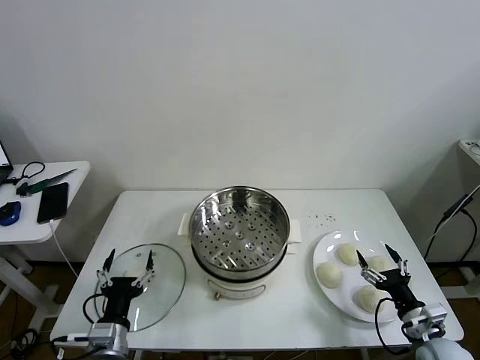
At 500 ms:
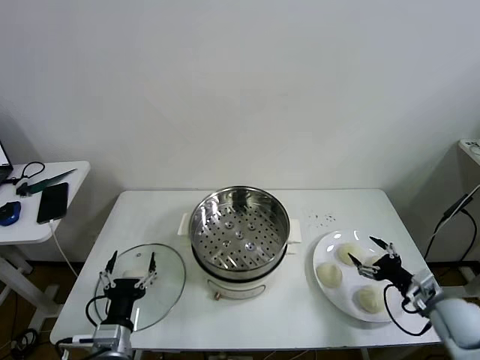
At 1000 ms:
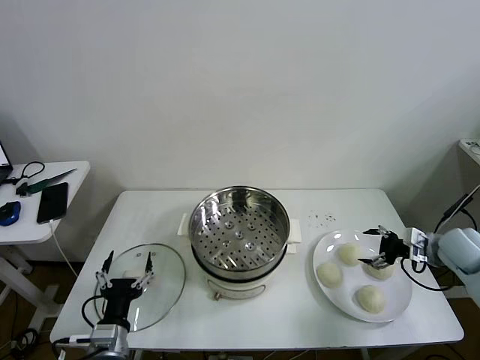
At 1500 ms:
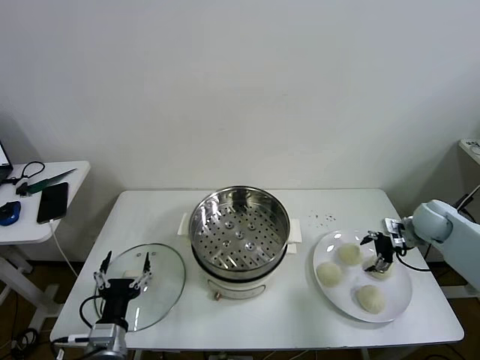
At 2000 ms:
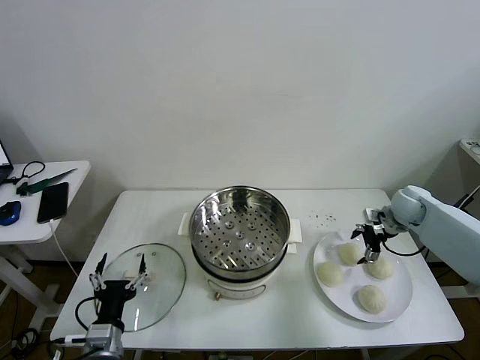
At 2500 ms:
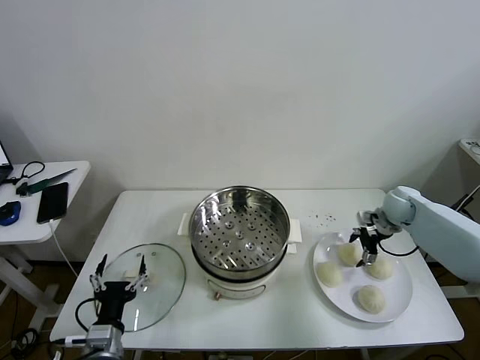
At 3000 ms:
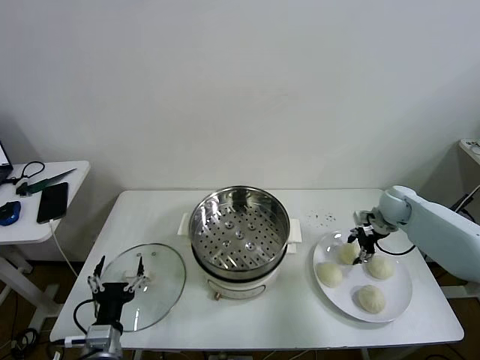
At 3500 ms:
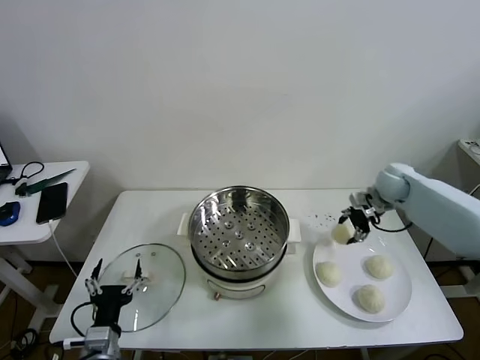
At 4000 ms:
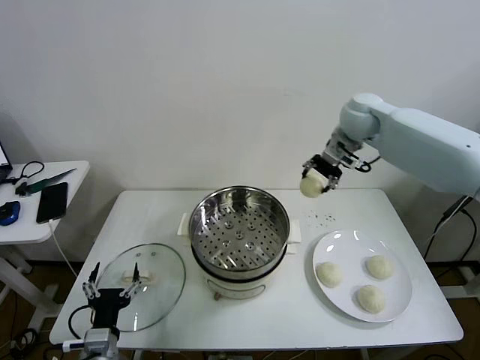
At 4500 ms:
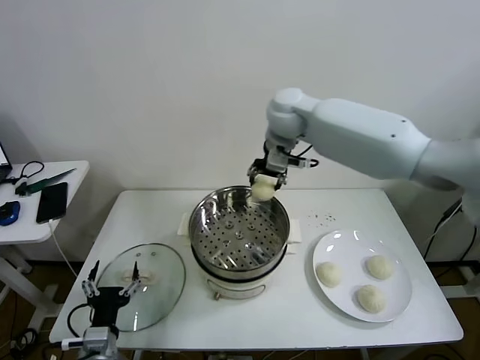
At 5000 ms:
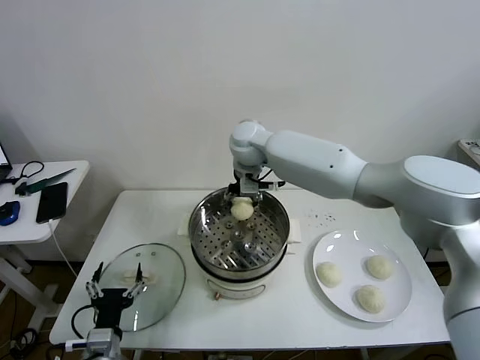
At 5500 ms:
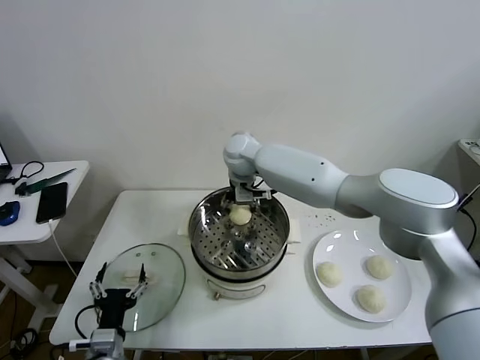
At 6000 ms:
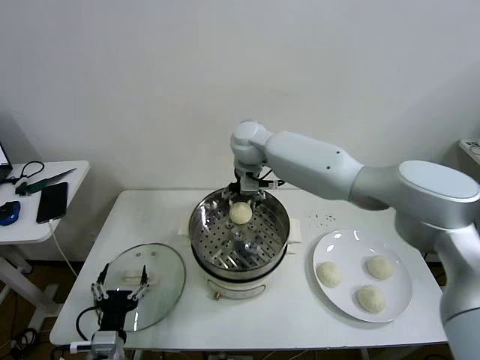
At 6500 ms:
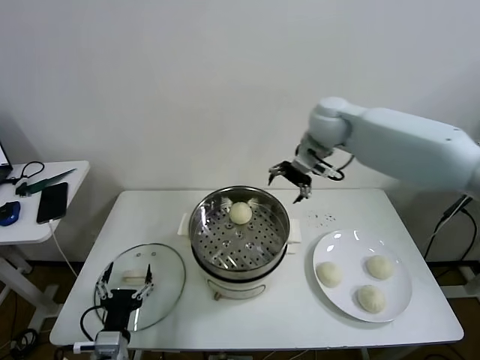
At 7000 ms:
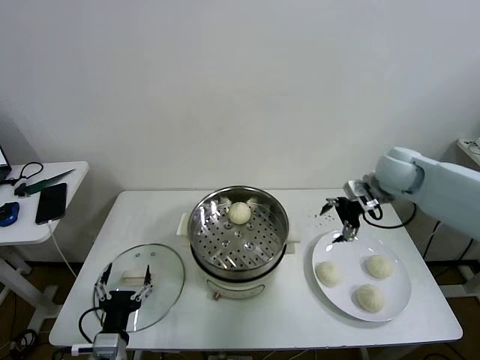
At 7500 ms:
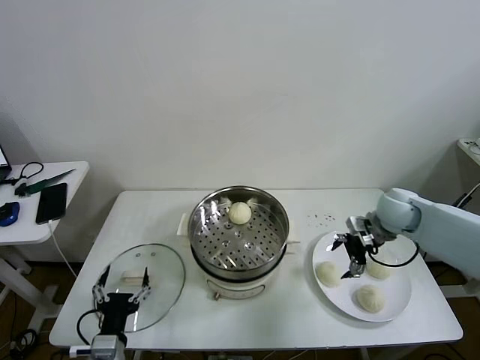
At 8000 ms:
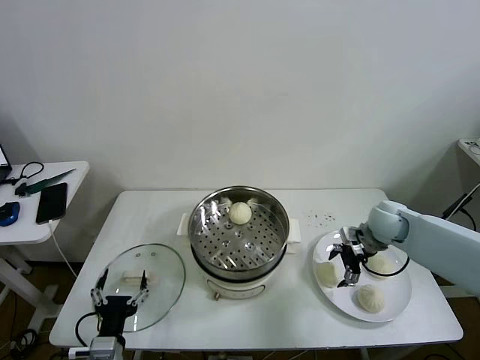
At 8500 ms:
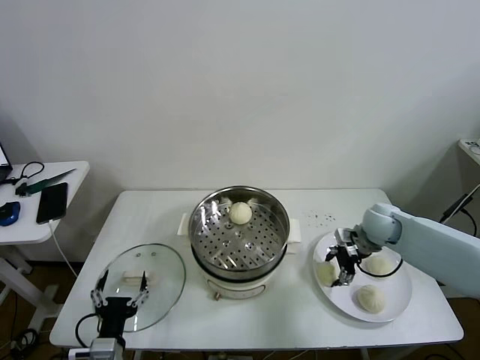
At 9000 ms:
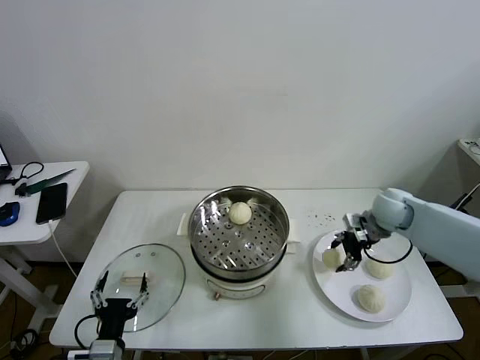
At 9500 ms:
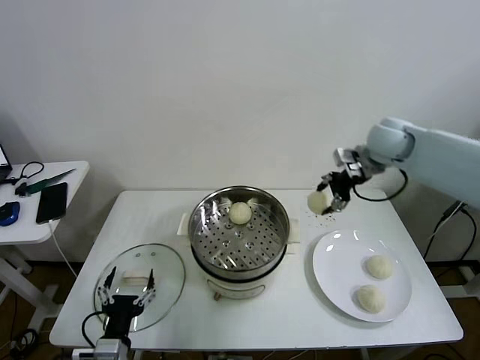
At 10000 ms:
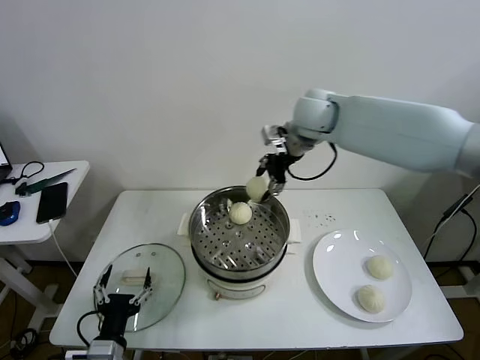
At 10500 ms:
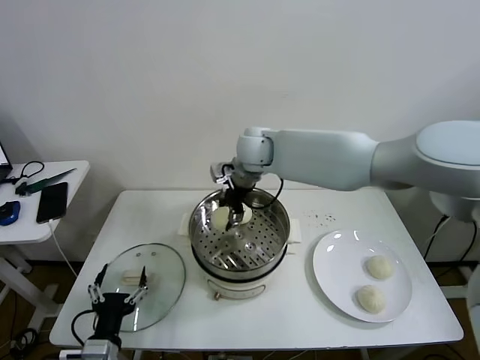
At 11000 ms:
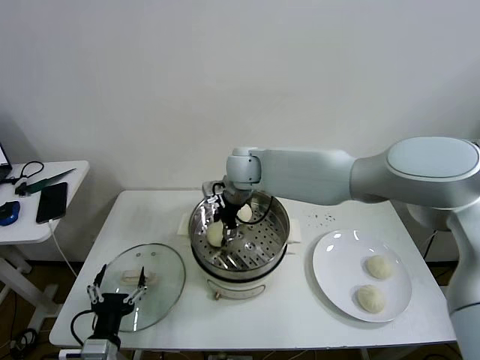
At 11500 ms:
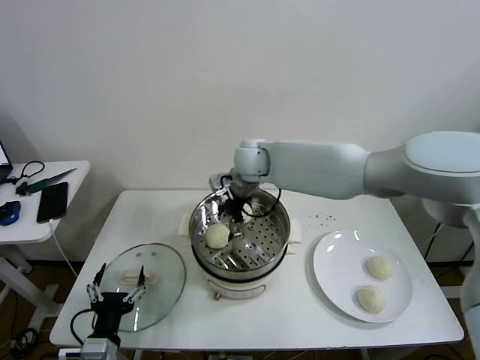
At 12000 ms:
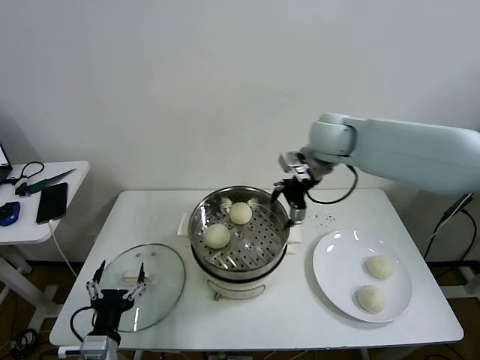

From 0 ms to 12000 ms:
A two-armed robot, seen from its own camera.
Task of the whole recording: take steamed baozi put them in steamer then cover it.
Step, from 0 ms to 2500 ms: Grasp the baozi in the plate with right gripper.
Step, from 3500 ms to 5500 ms: Place the baozi on the steamer with right gripper.
Step, from 6000 ms to 8000 ms: Grasp the baozi in the plate with right gripper.
Step, from 8500 ms to 11000 ms: Place the baozi on the steamer with right gripper.
From 2000 ms to 4000 ms: The right gripper moves upward and to the left, about 30 cm, and closes up.
From 4000 ms to 6000 ms: The right gripper is displaced to the left by about 20 cm, and opens up.
From 6000 ms to 8000 ms: The right gripper heads to the right and downward, covering some 35 cm.
From 8000 ms to 10000 ms: The right gripper moves upward and to the left, approximately 35 cm, and closes its fingers.
From 10000 ms to 12000 ms: The right gripper is displaced to the right by roughly 10 cm, and opens its fingers.

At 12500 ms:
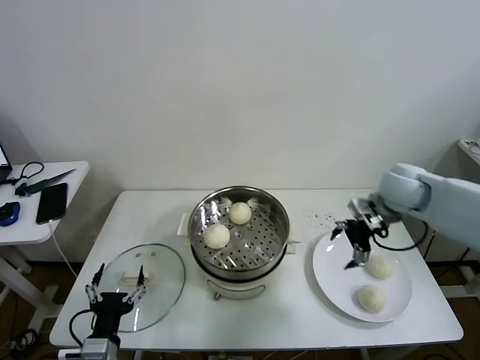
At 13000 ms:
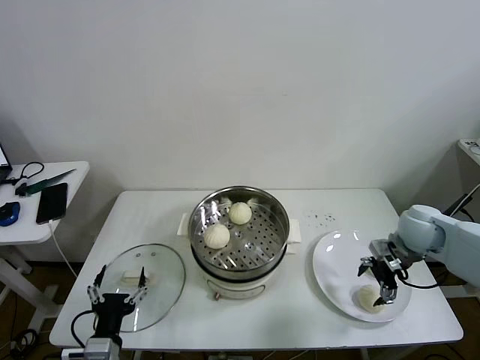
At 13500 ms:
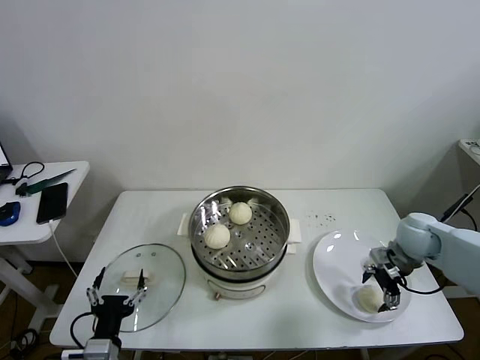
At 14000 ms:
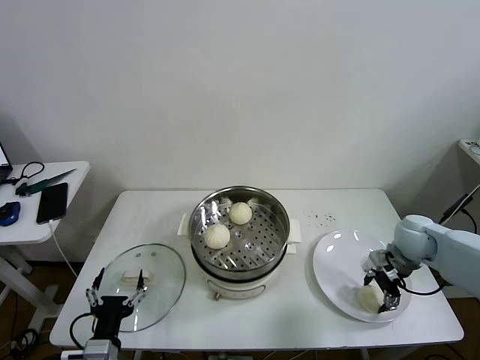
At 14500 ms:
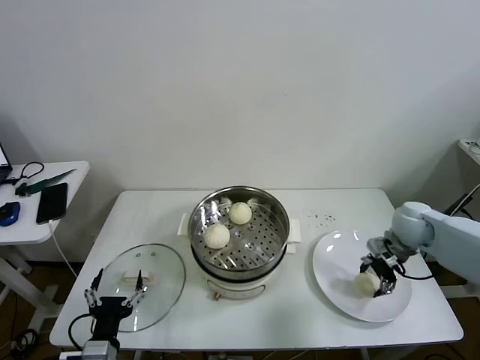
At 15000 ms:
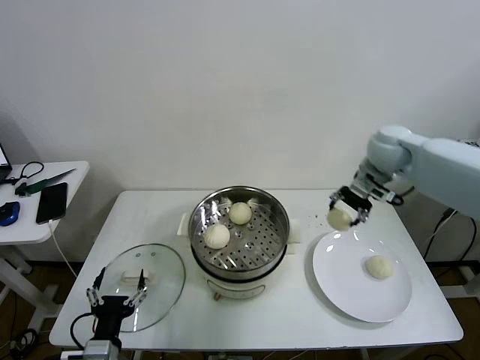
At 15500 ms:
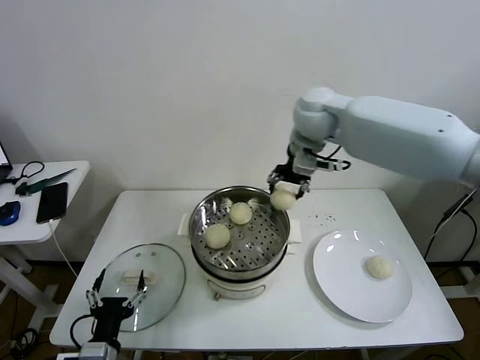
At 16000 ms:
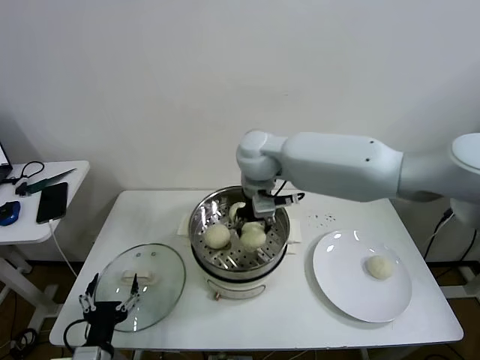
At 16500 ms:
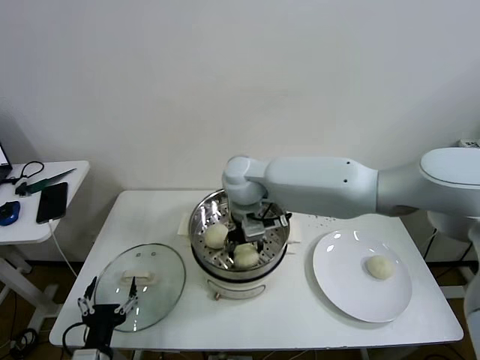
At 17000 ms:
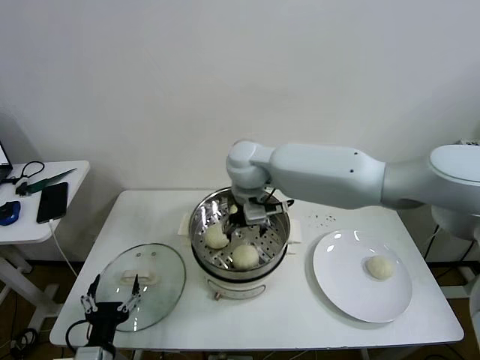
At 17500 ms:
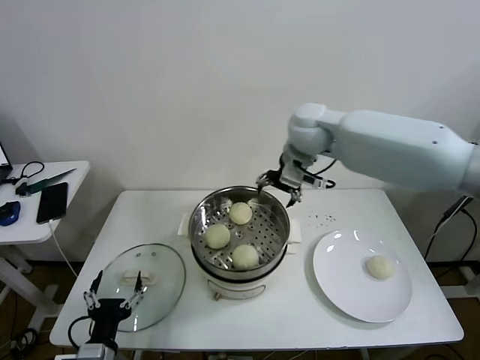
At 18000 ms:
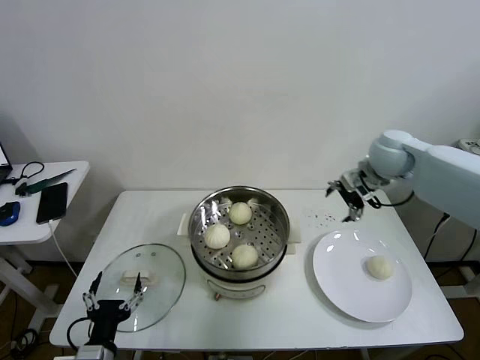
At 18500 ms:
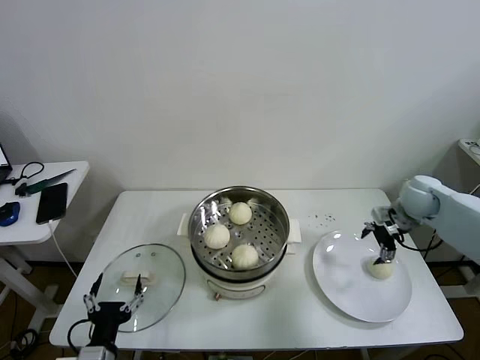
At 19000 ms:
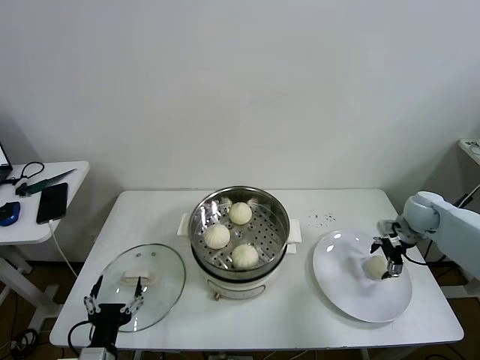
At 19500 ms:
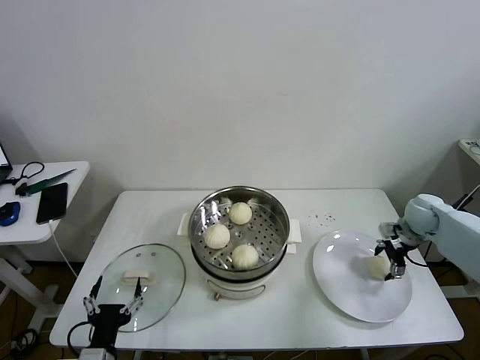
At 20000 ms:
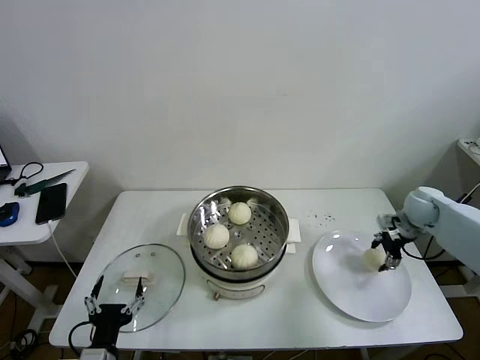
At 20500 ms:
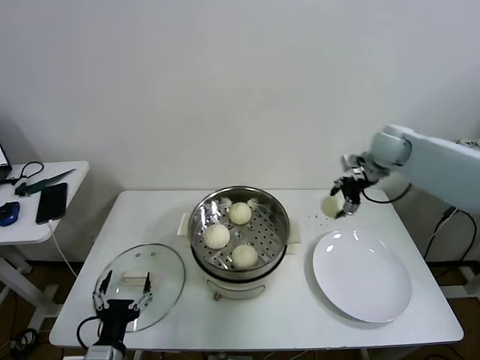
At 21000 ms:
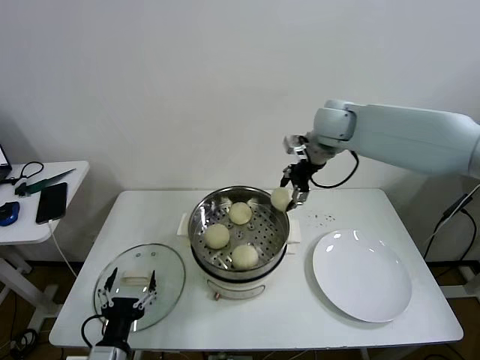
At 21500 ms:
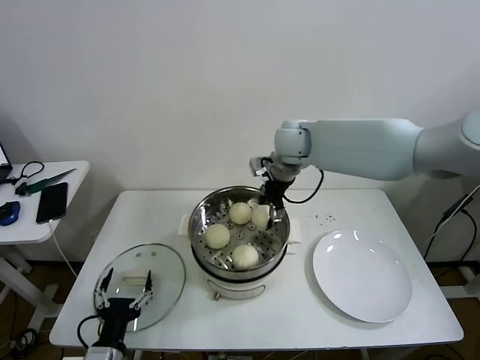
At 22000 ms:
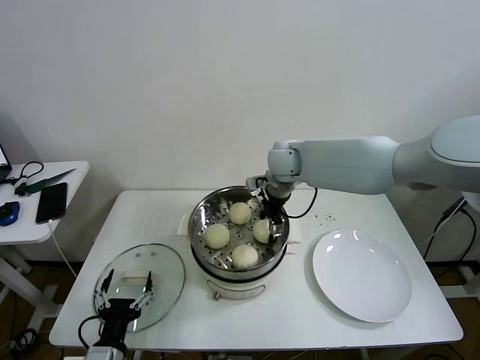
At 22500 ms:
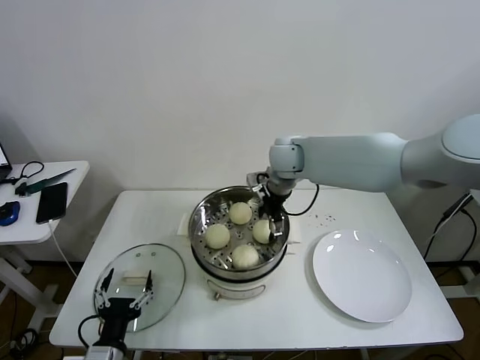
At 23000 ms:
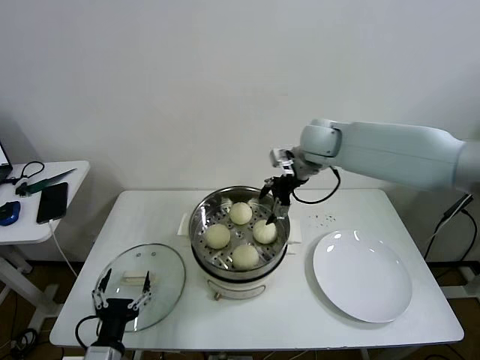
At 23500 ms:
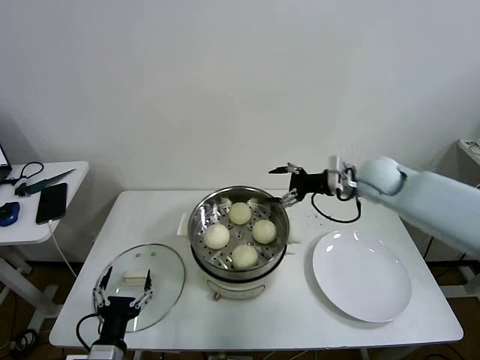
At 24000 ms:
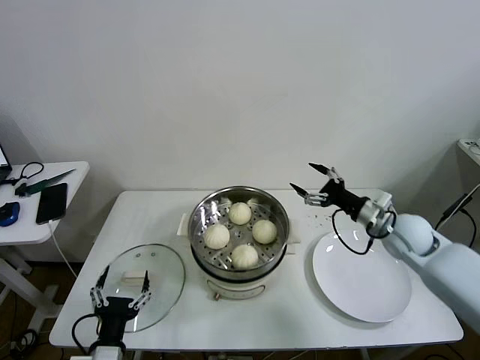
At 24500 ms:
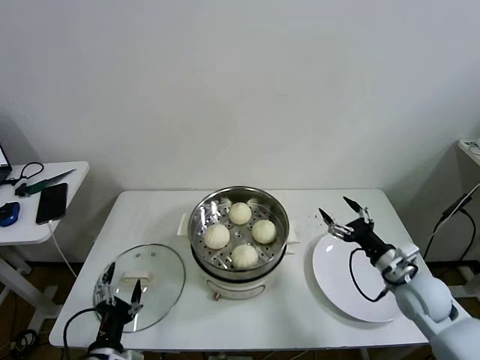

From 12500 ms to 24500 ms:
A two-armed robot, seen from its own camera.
Task of the whole recording: take steamed baozi put them in steamer then cover it.
Step, from 12500 ms to 14000 ms: Grasp the baozi in the plate with right gripper.
Step, from 14500 ms to 16500 ms: Place the baozi on the steamer with right gripper.
Step, from 17000 ms to 19500 ms: Grasp the baozi in the plate with right gripper.
Step, from 20000 ms to 22000 ms: Place the baozi on the steamer with right gripper.
From 12500 ms to 14500 ms: The right gripper shifts about 10 cm downward, and closes up.
From 14500 ms to 16500 ms: The right gripper goes about 40 cm to the left.
From 16500 ms to 18500 ms: The right gripper heads to the right, covering roughly 40 cm, and opens up.
From 18500 ms to 20500 ms: The right gripper travels upward, to the left and forward by some 15 cm, and closes up.
From 20500 ms to 22500 ms: The right gripper heads to the left, covering roughly 25 cm, and opens.
From 22500 ms to 24500 ms: The right gripper shifts approximately 40 cm to the right, backward and downward.

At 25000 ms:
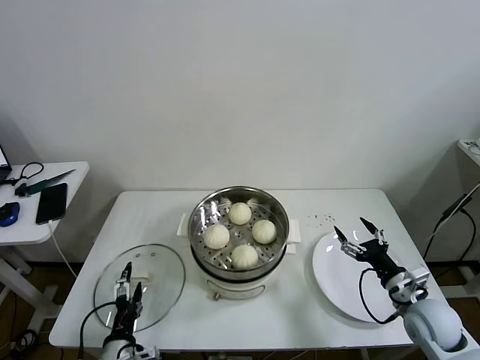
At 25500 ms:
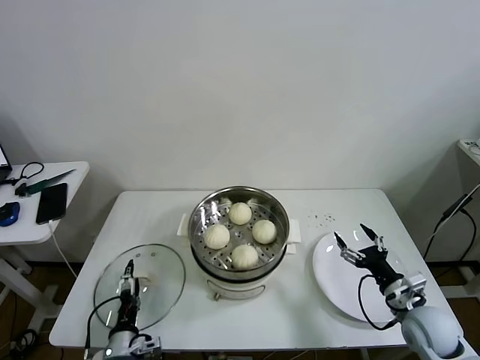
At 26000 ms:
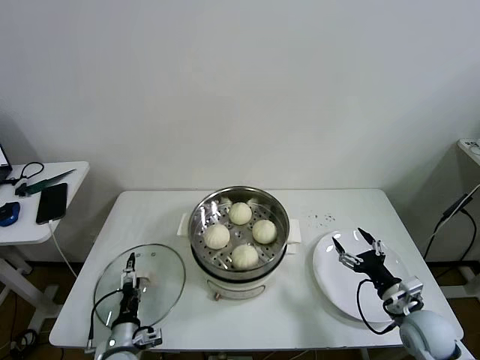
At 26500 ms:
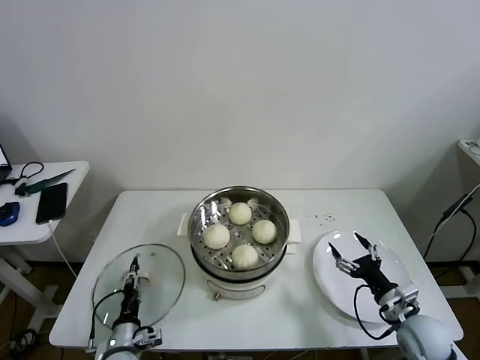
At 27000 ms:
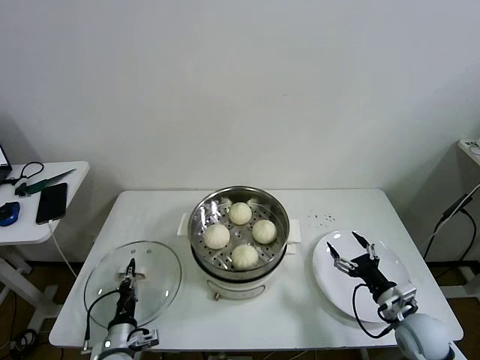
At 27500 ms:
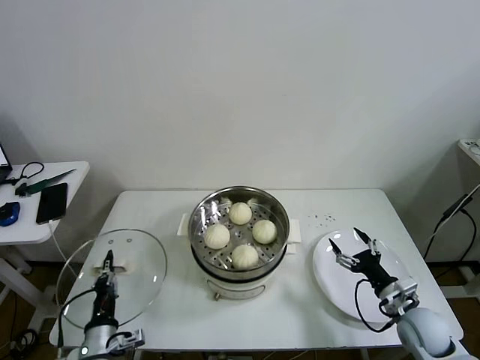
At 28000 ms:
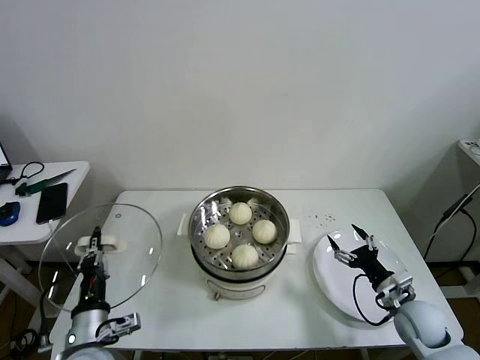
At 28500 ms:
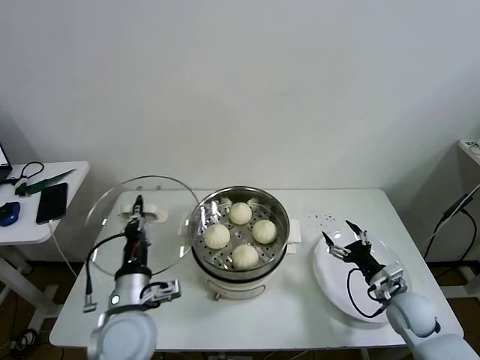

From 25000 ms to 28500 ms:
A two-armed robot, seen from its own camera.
Task of the whole recording: take steamed baozi put them in steamer then cover it.
From 25000 ms to 27000 ms: The left gripper heads downward and forward, covering roughly 10 cm, and closes up.
From 27000 ms to 28500 ms: The right gripper ends up approximately 5 cm from where it was, while the left gripper travels upward by some 20 cm.
